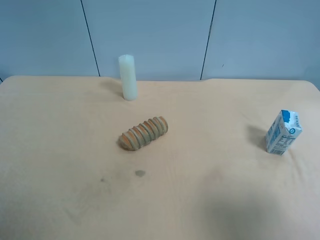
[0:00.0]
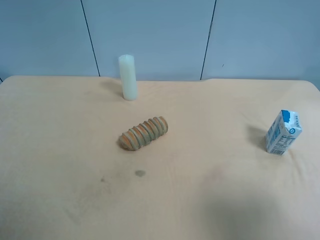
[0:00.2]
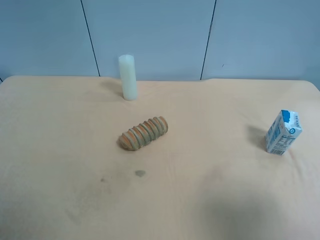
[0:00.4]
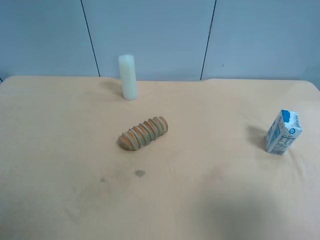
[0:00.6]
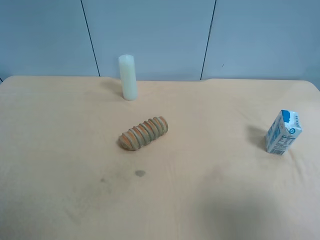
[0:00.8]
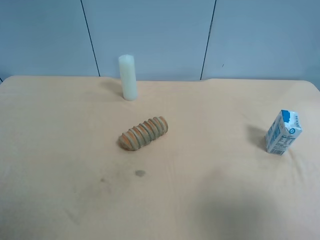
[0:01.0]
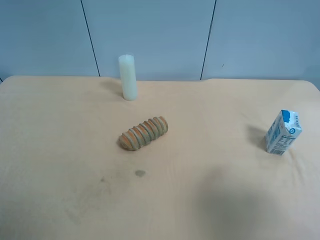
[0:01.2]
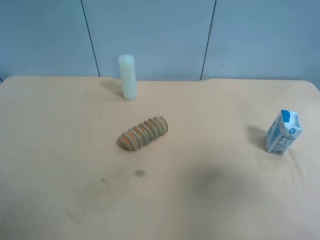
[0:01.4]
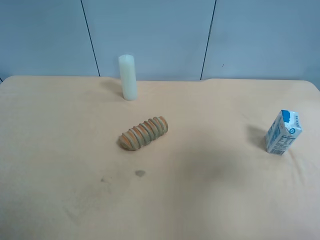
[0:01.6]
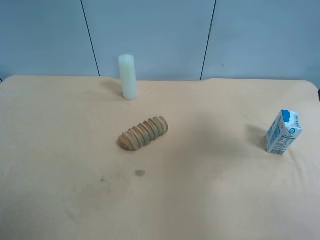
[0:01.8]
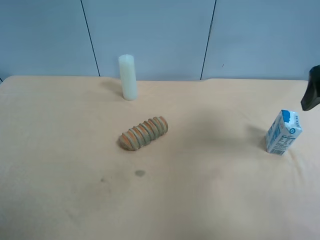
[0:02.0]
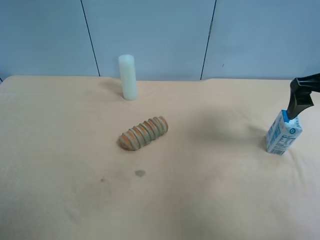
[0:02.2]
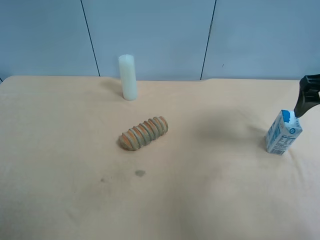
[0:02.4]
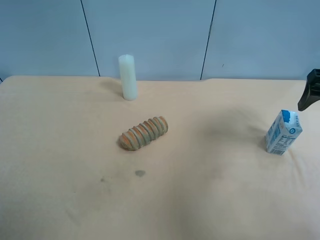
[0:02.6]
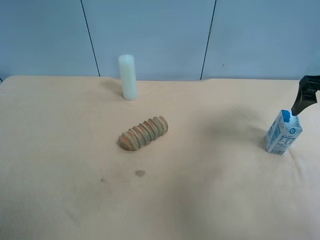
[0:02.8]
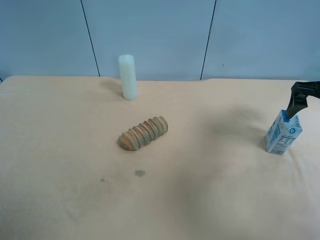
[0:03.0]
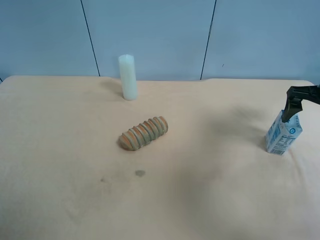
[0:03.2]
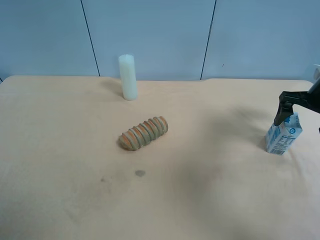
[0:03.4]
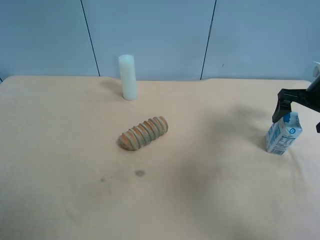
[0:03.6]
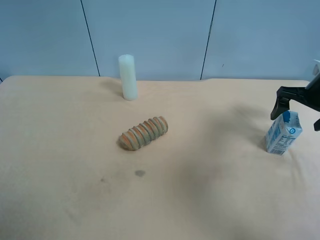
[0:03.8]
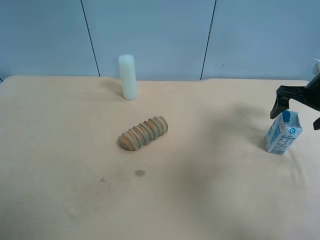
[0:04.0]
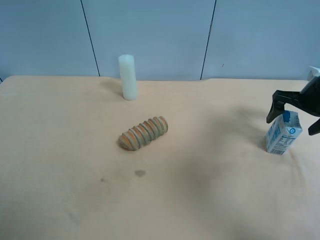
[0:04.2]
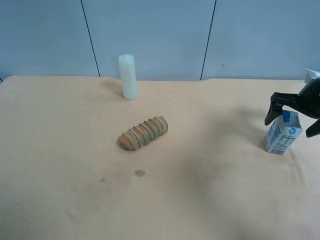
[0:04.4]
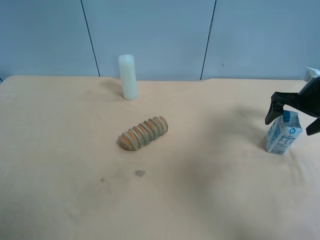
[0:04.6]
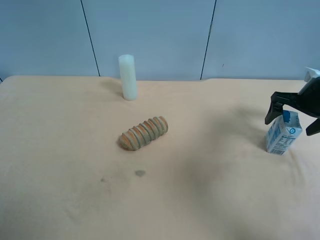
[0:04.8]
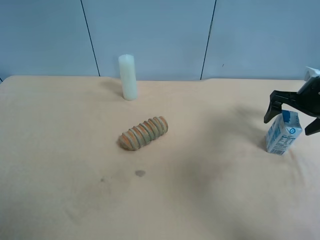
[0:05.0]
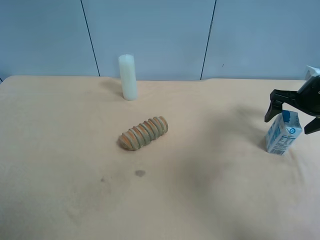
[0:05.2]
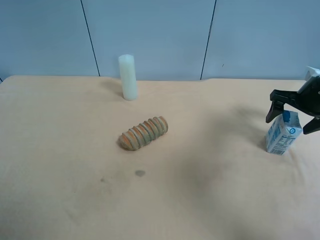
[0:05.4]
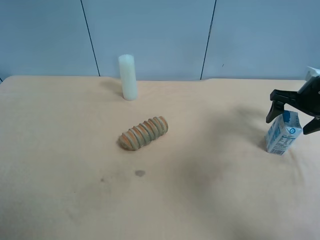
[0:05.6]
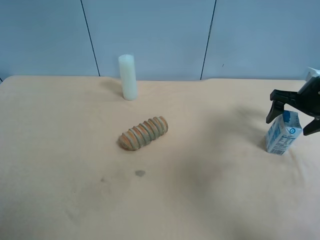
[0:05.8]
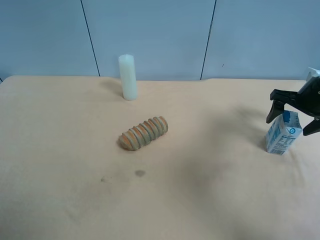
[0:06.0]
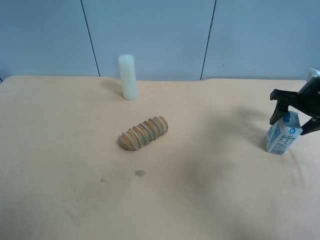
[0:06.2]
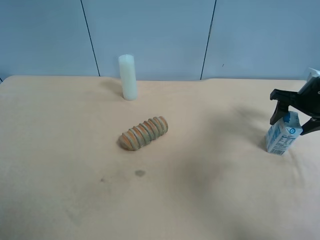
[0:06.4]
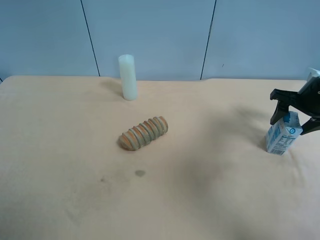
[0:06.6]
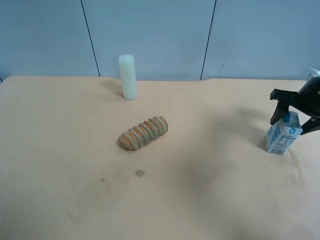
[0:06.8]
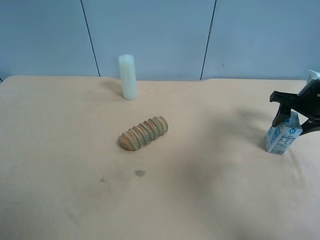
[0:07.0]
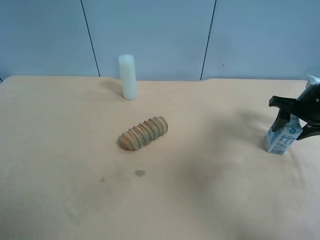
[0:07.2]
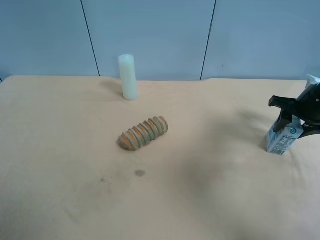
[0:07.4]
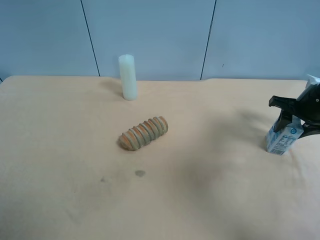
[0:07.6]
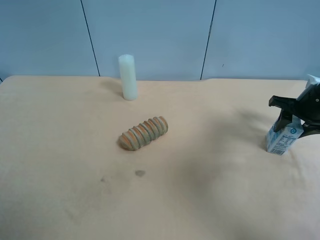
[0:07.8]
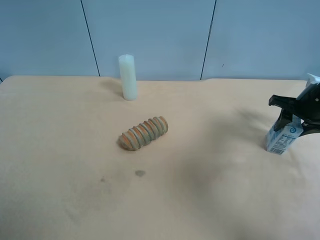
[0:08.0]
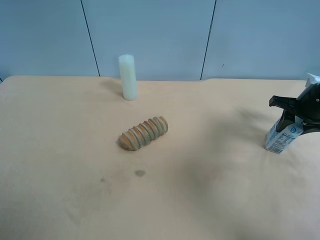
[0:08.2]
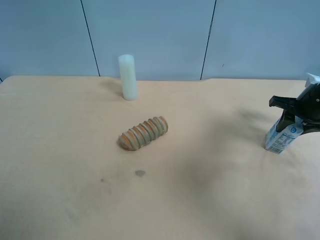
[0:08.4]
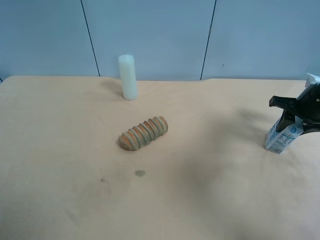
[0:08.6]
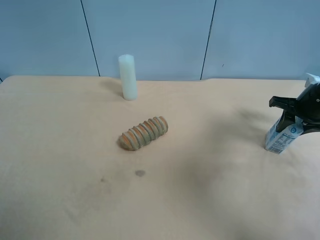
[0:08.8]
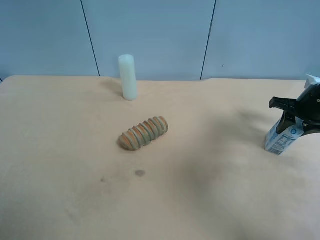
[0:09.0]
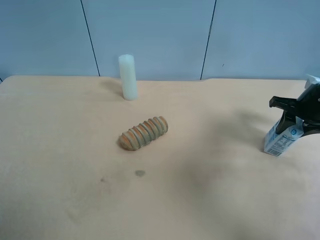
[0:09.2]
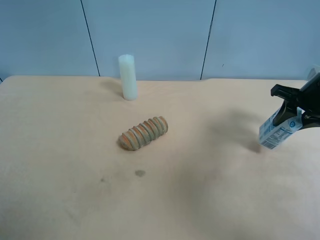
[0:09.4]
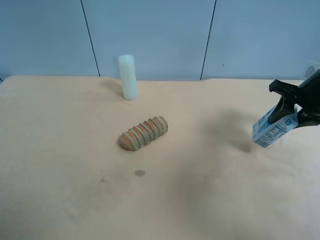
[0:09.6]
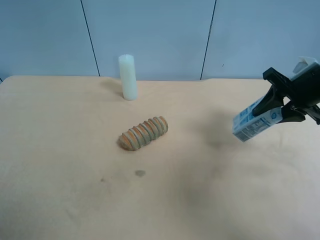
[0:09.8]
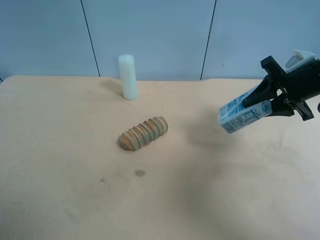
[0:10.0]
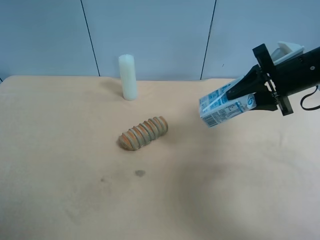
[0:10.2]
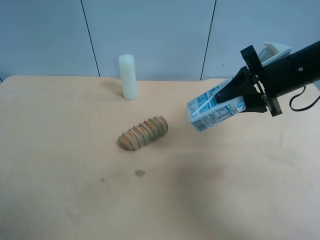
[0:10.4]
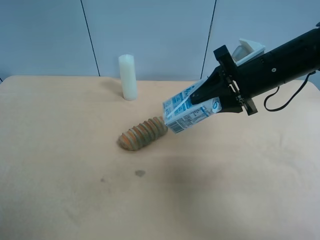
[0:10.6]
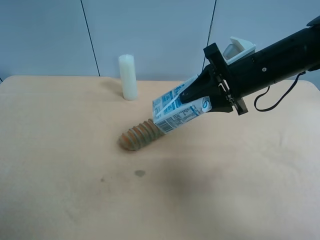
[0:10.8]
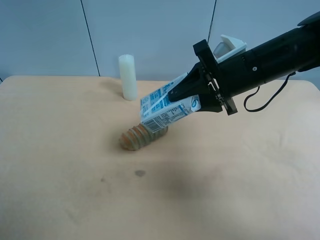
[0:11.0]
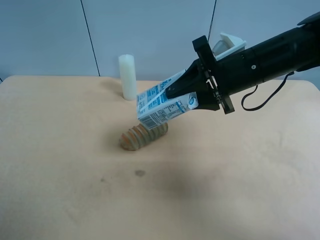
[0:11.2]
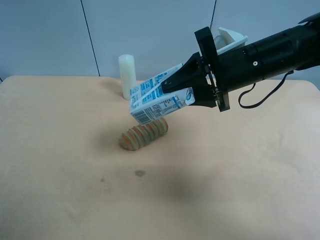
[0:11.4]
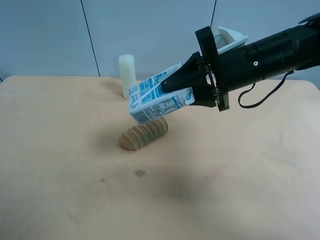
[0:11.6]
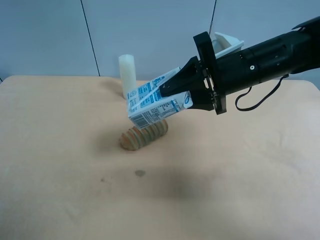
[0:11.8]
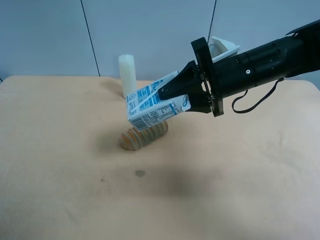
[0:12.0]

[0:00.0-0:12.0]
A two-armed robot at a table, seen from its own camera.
Task of the whole recording: use the right gripper to pick up the item and transfer it from the right gripper to the left gripper.
0:00.0 to 0:01.6: The right gripper heads forward and upward, covering approximately 15 cm.
0:01.6 to 0:03.0: The right gripper shifts some 20 cm forward and downward.
0:03.0 to 0:04.4: The right gripper is displaced downward by some 5 cm.
0:04.4 to 0:06.0: Both grippers stay about where they are.
0:06.0 to 0:07.6: The right gripper closes.
0:07.6 to 0:09.0: The two grippers keep their place.
0:09.0 to 0:10.4: The right gripper shifts about 15 cm to the left and upward.
0:10.4 to 0:12.0: The left gripper travels forward by approximately 10 cm, while the right gripper is displaced to the left by approximately 10 cm.

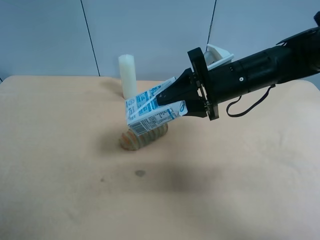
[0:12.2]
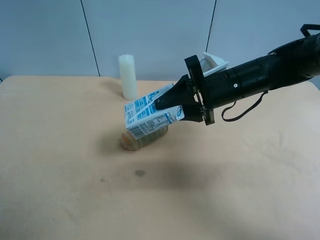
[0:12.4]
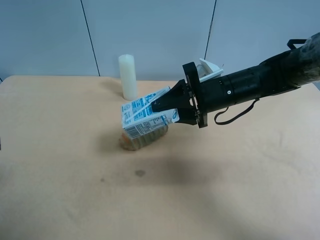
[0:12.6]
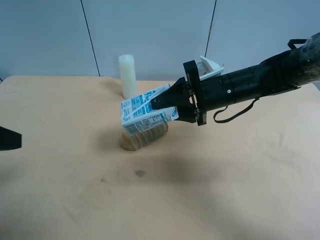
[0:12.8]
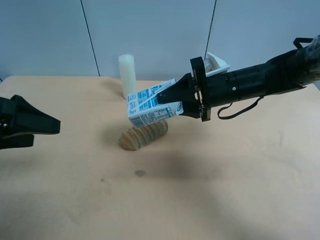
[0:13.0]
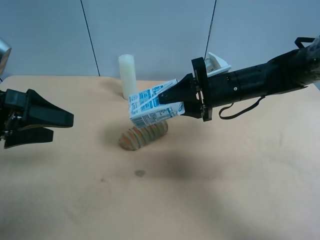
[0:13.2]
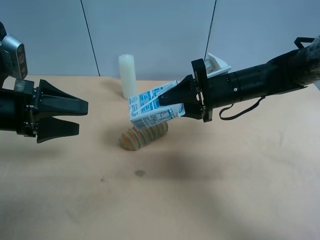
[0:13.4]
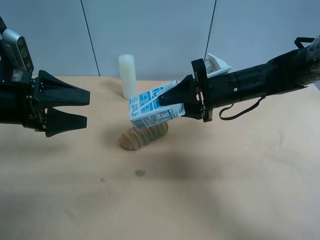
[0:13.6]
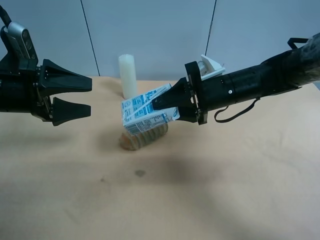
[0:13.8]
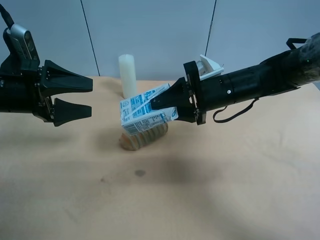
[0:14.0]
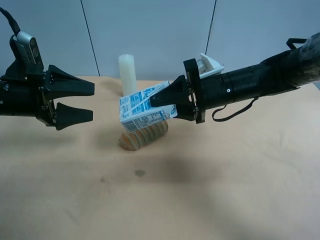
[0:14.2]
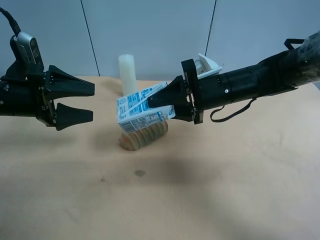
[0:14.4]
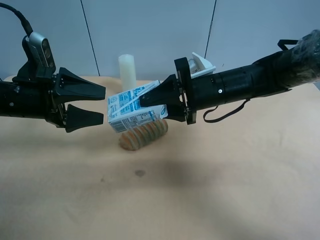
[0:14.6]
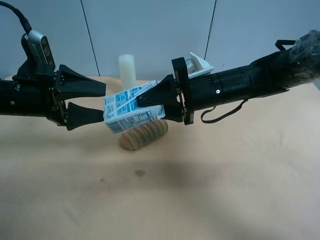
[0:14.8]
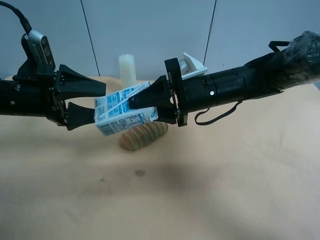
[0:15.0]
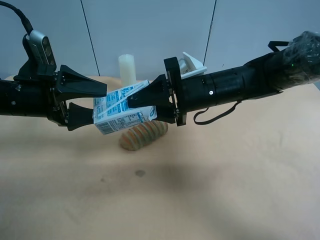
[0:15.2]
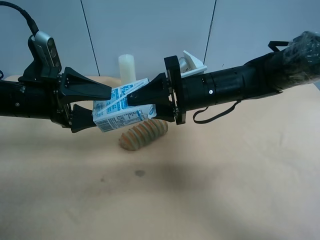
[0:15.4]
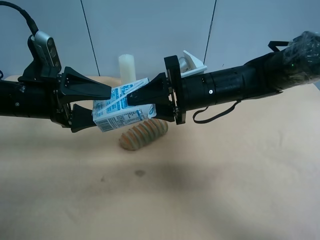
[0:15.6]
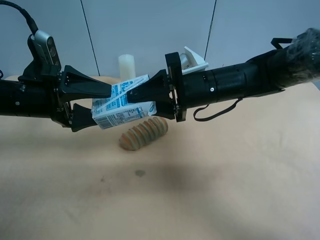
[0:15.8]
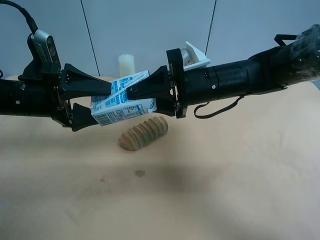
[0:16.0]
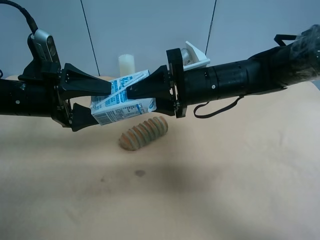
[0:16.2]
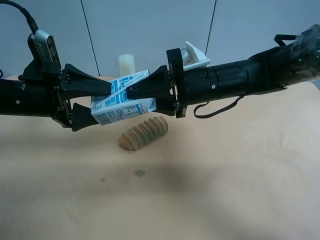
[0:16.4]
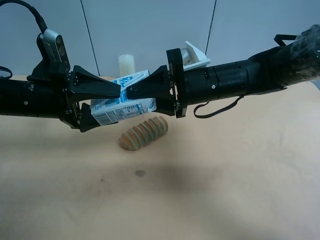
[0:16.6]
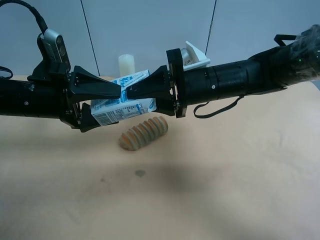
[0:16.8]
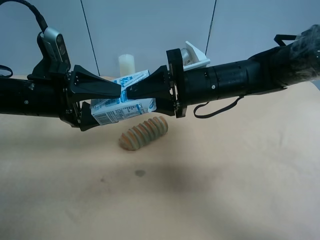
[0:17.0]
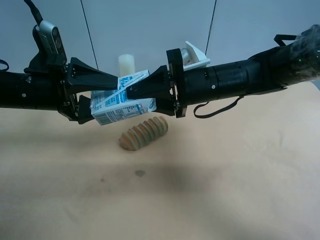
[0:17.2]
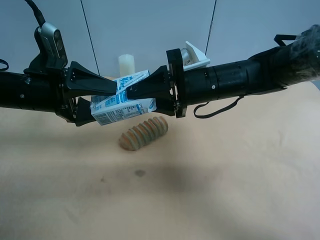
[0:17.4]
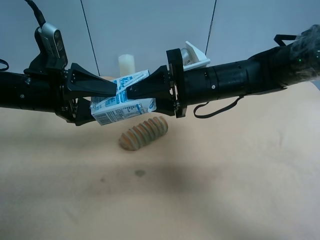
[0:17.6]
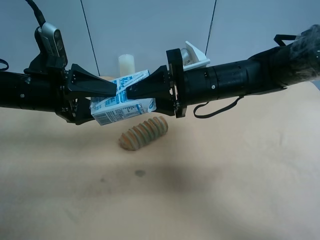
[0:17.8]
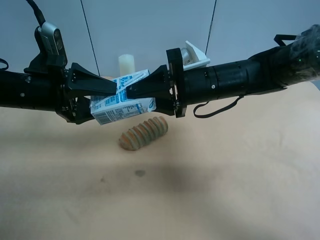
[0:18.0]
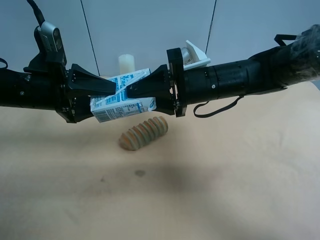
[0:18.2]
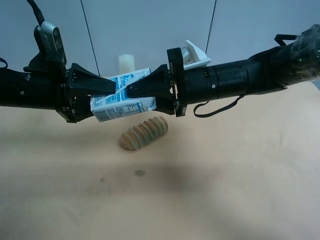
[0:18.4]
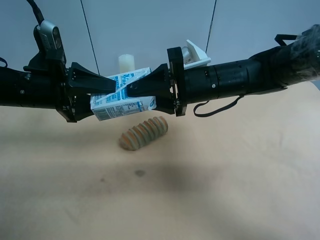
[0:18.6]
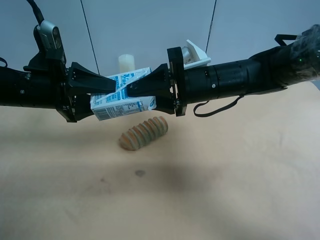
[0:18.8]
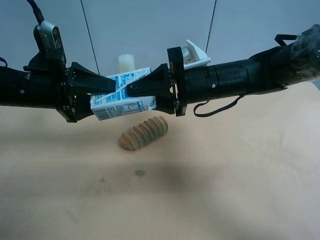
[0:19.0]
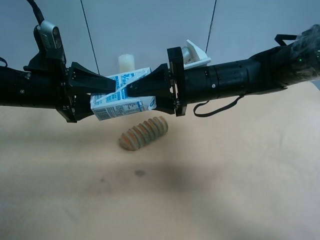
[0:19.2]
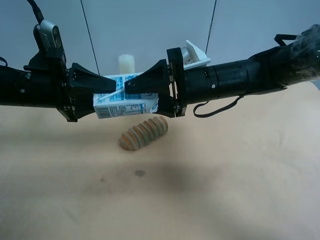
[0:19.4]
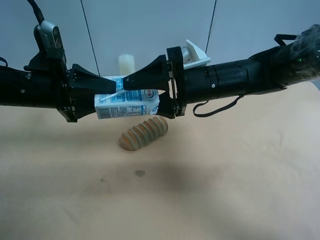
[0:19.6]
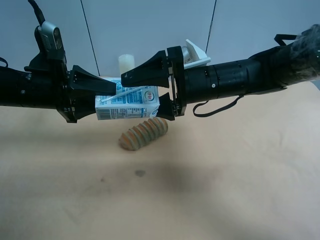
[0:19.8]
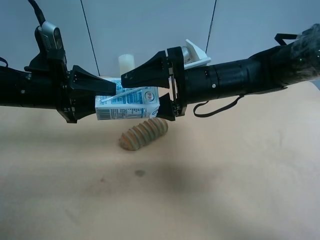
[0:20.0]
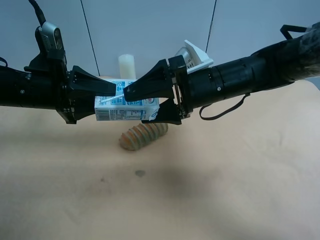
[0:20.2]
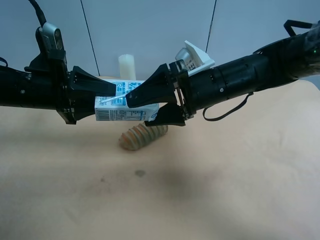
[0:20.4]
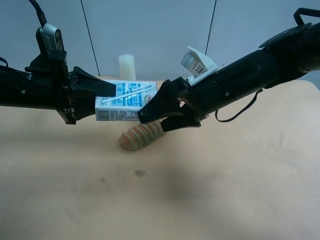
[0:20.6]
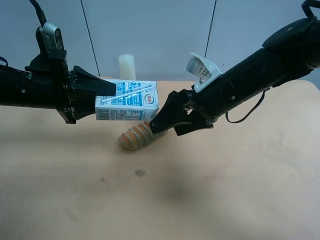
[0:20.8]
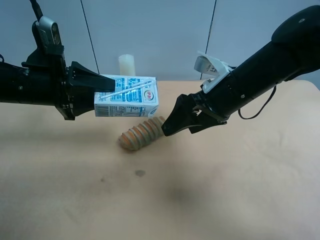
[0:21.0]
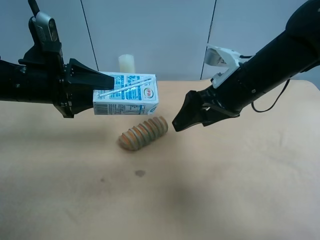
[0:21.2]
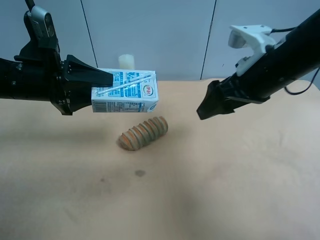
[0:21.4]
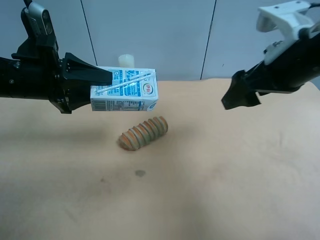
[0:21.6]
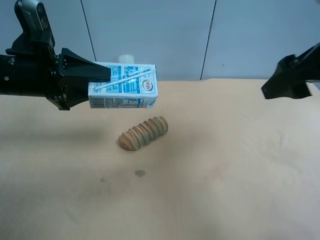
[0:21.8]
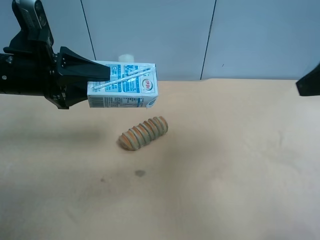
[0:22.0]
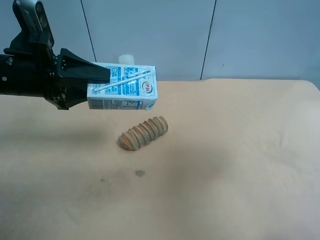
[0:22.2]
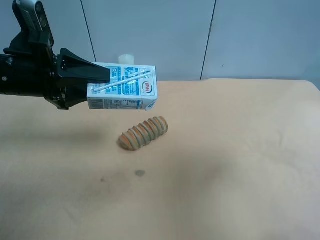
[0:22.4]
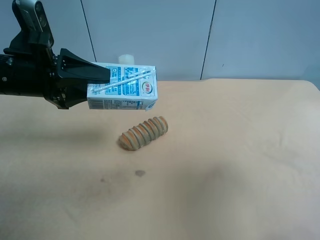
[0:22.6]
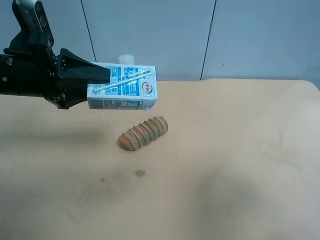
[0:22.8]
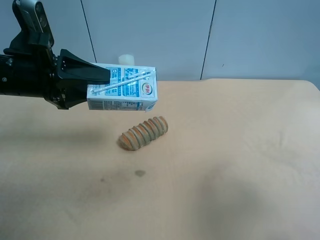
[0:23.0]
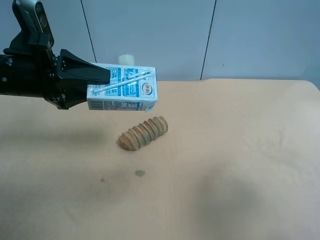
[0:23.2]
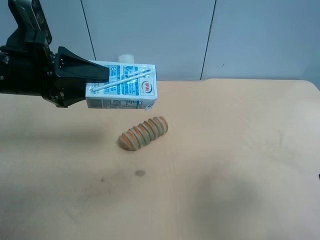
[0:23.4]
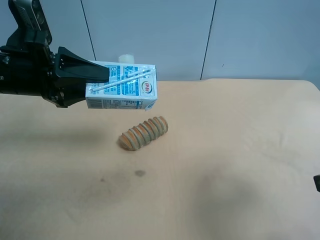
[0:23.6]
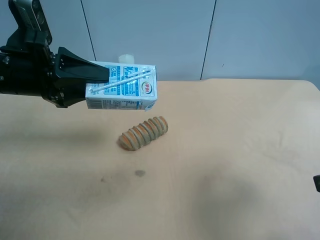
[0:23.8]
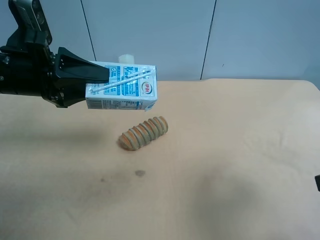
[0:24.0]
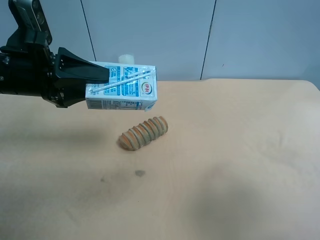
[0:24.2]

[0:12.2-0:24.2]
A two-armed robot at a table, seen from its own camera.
Task of the whole recording: use the right gripper to pick up the item and transfer it from the right gripper to the left gripper.
0:12.2 to 0:13.8: The left gripper is displaced forward by roughly 20 cm.
0:13.8 to 0:16.6: The grippers stay close to where they were, moving slightly.
0:16.6 to 0:18.2: The left gripper closes.
0:18.2 to 0:19.8: The right gripper opens up.
0:19.8 to 0:21.2: The right gripper travels to the right by roughly 5 cm.
0:21.2 to 0:22.6: The right gripper heads backward, to the right and upward, covering approximately 25 cm.
0:22.6 to 0:24.2: The right gripper shifts some 5 cm downward.
